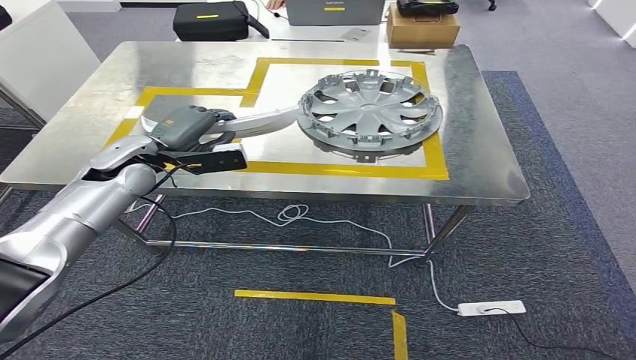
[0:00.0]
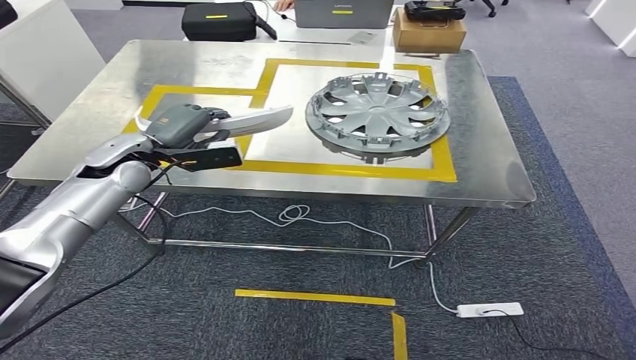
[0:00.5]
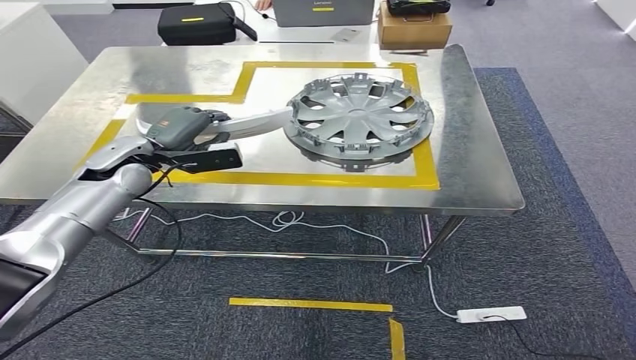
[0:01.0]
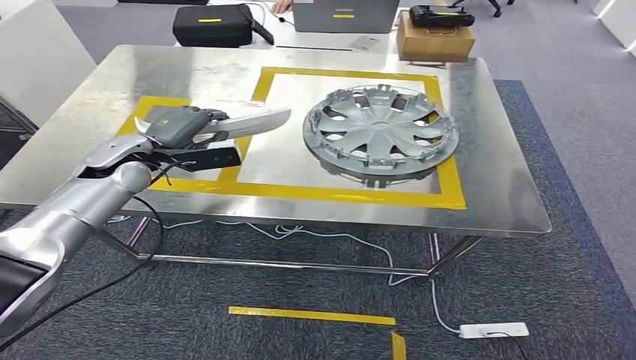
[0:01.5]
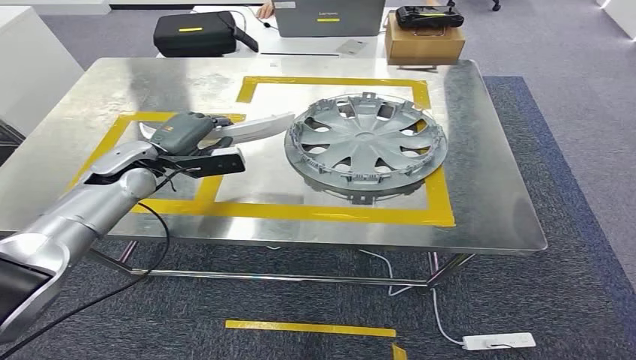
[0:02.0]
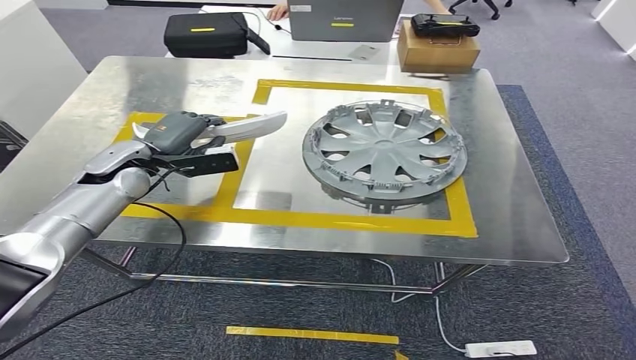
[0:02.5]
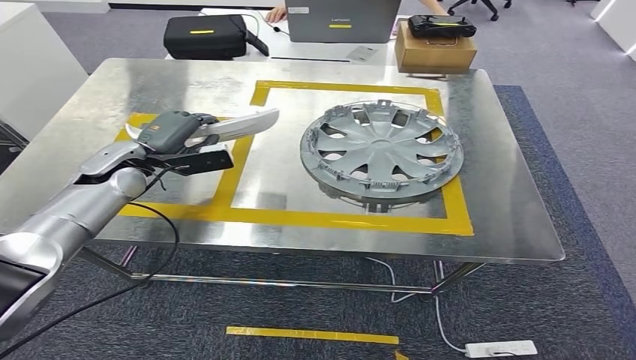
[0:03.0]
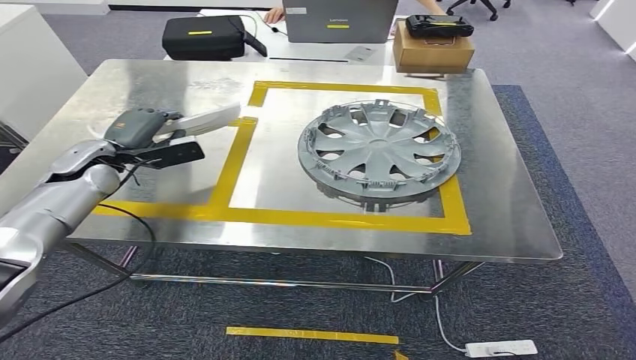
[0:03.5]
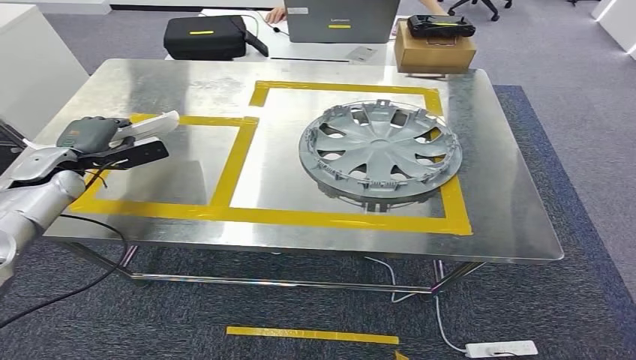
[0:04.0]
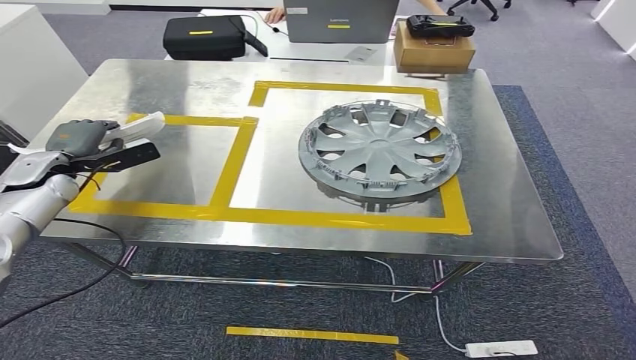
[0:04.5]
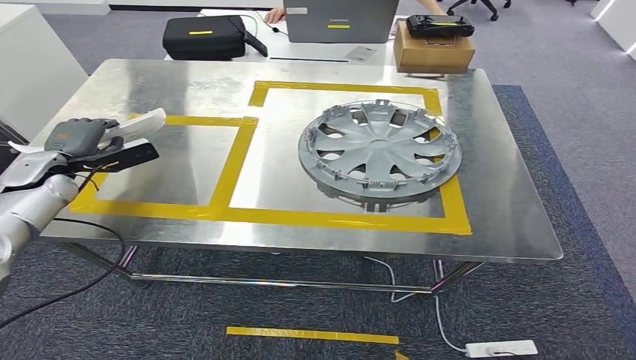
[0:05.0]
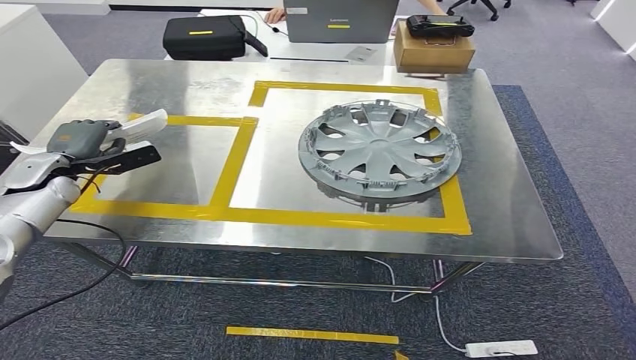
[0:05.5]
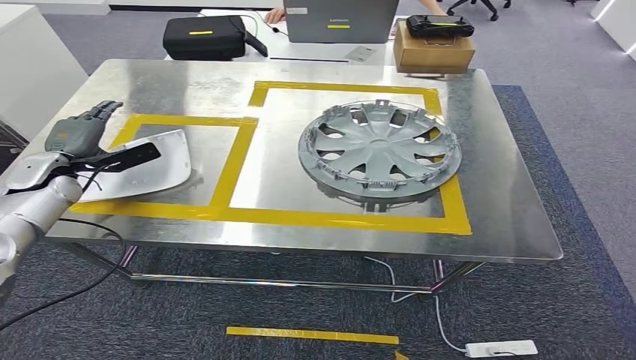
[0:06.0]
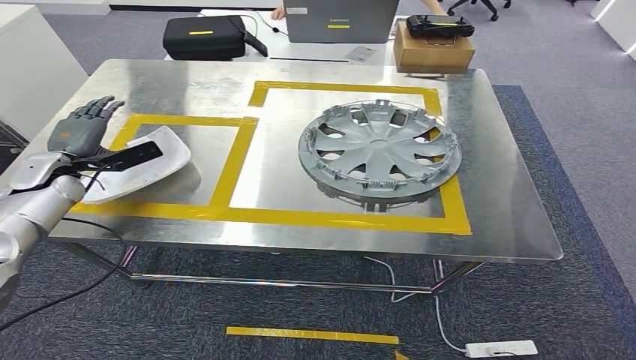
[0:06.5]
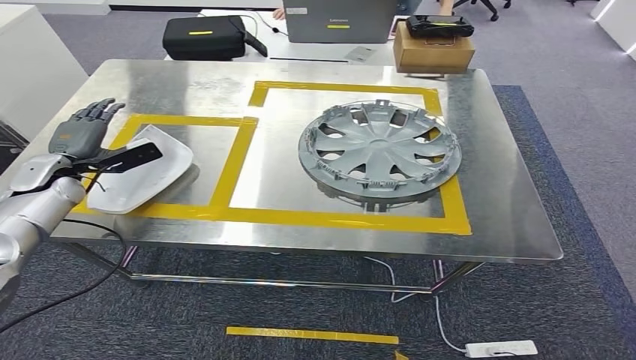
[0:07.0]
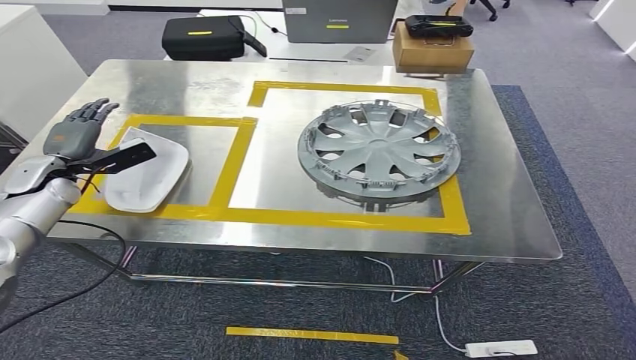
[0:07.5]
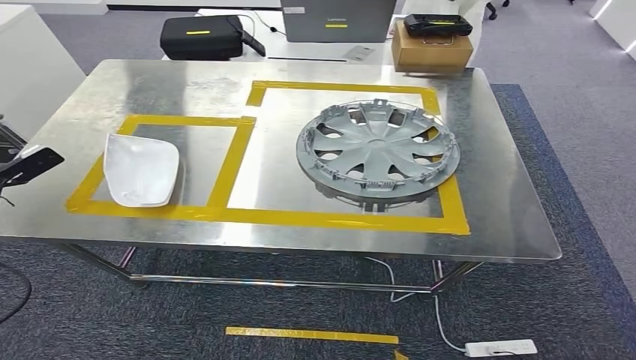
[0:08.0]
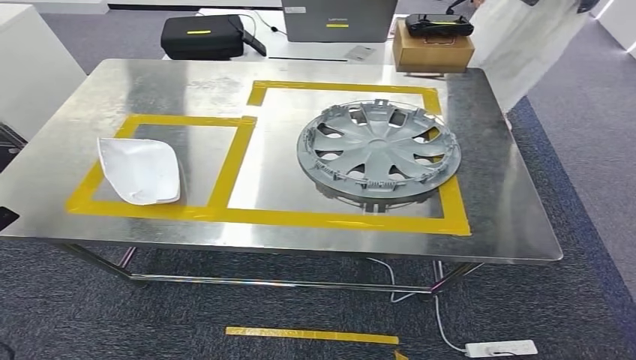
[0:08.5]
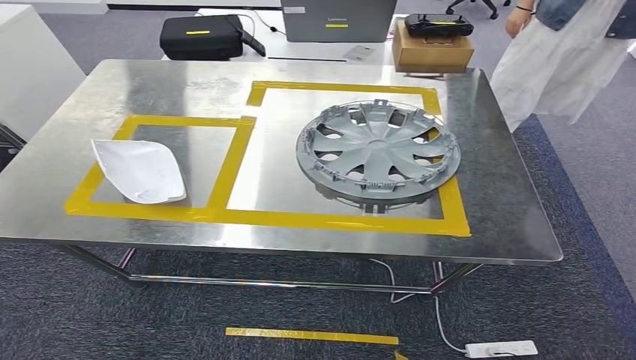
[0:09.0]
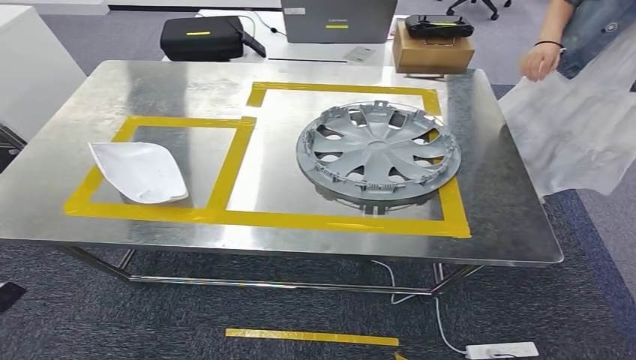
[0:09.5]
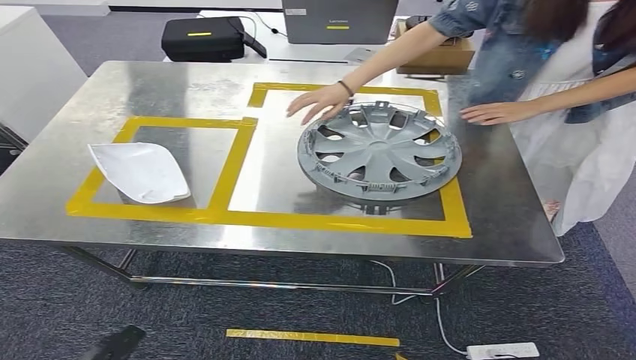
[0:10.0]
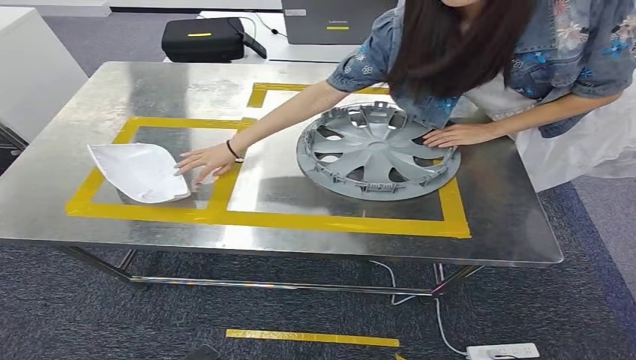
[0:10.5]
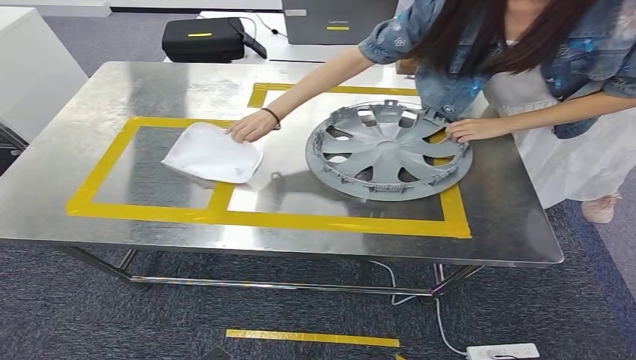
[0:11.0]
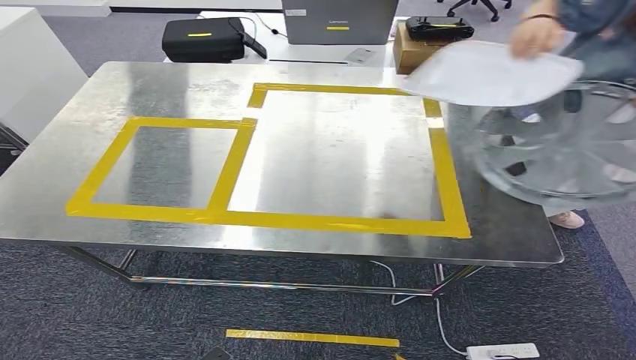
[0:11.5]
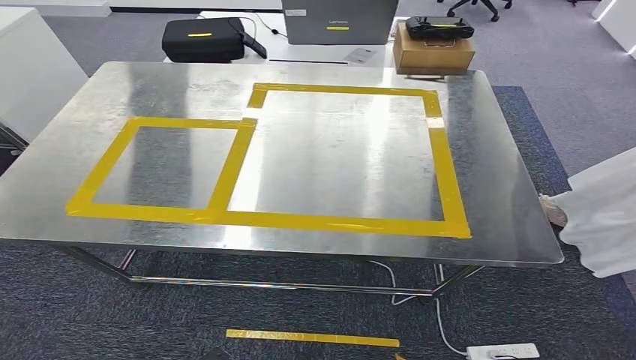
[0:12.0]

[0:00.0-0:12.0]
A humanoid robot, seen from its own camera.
Step, 0:00.0 to 0:06.5: Insert the small component into the corresponding slot on the workbench.
0:04.0 to 0:06.0: The hands stay close to where they were, moving slightly.
0:06.0 to 0:08.0: The left hand goes roughly 15 cm to the left and backward.

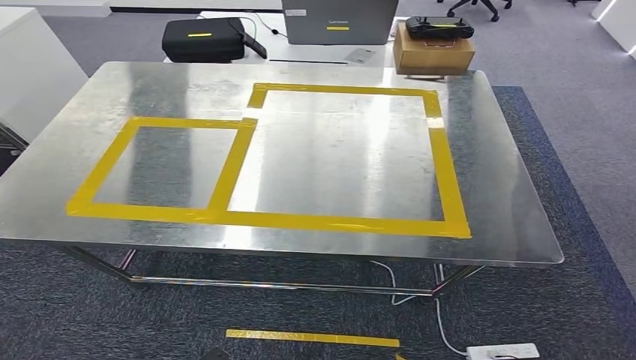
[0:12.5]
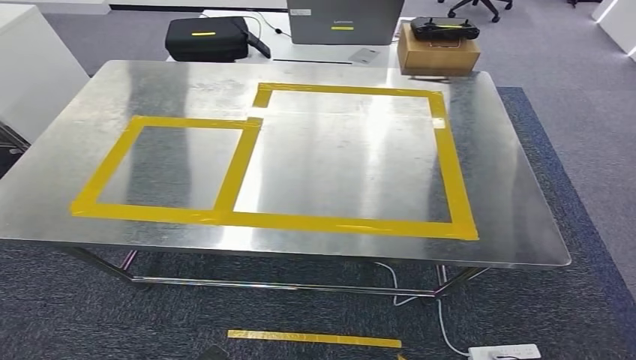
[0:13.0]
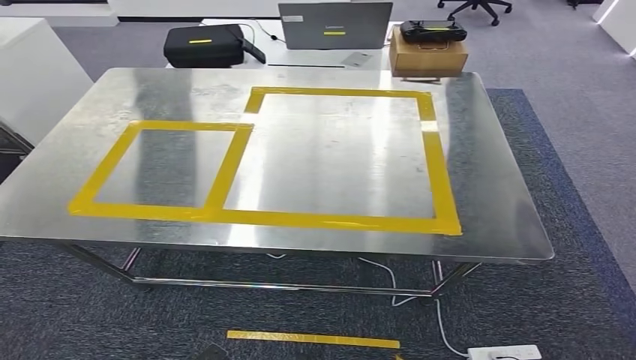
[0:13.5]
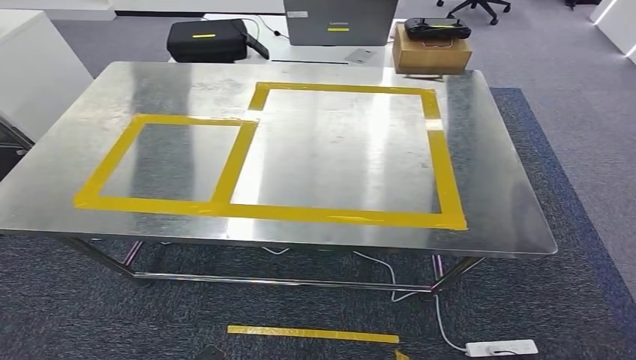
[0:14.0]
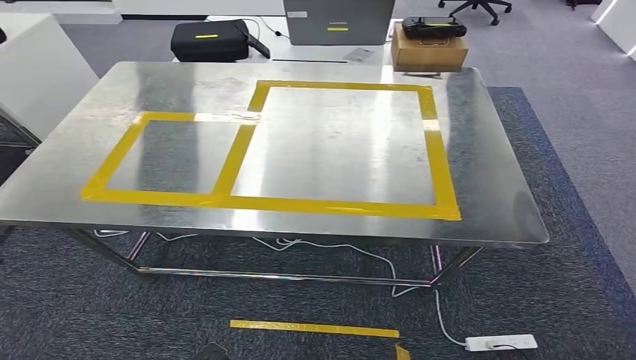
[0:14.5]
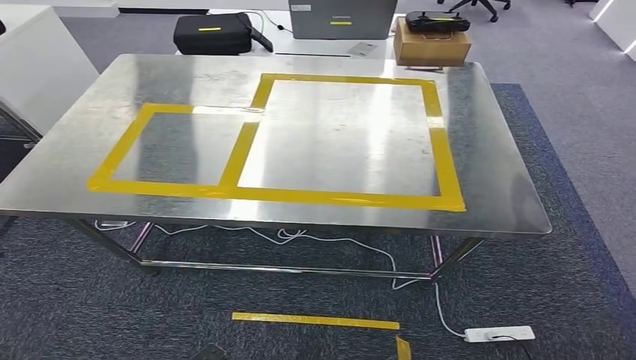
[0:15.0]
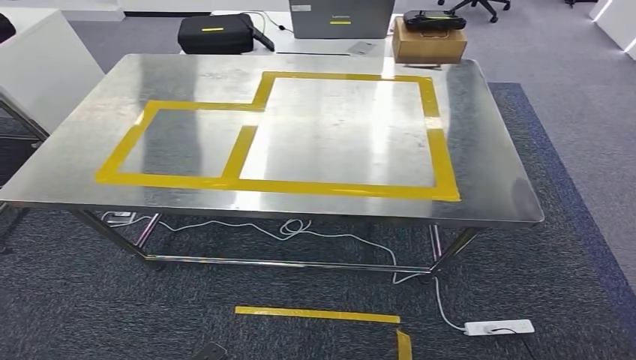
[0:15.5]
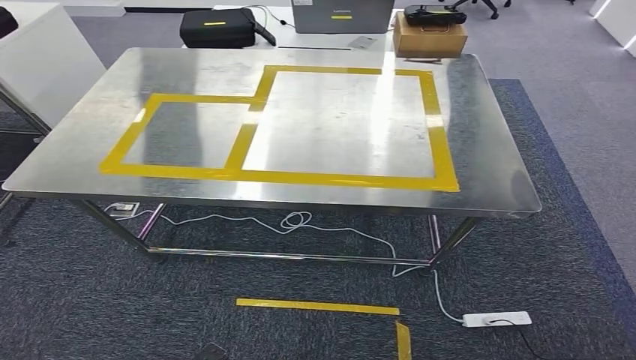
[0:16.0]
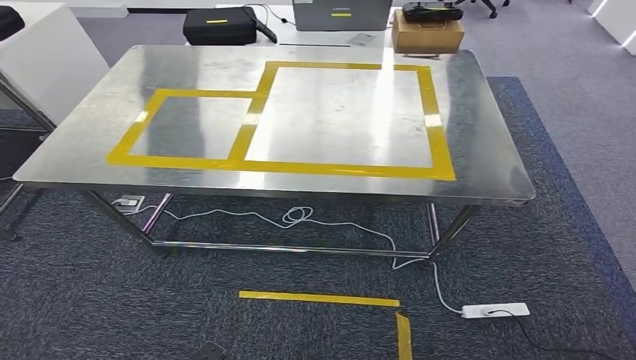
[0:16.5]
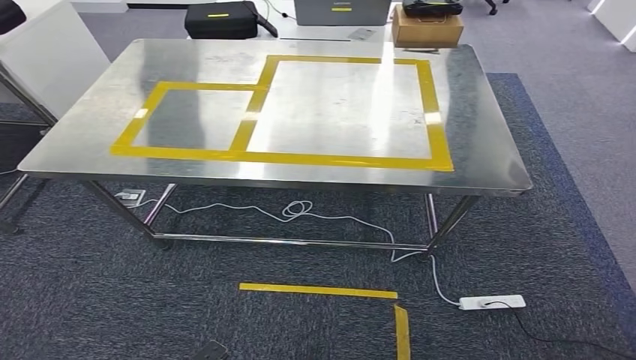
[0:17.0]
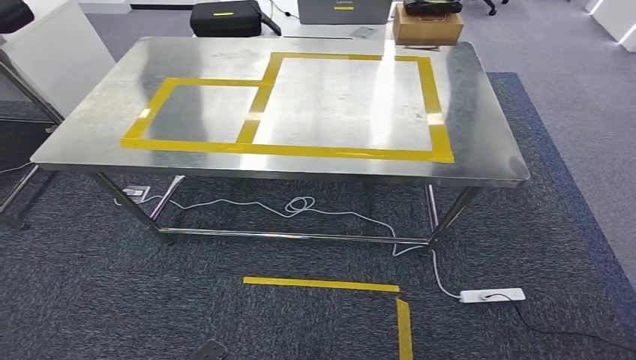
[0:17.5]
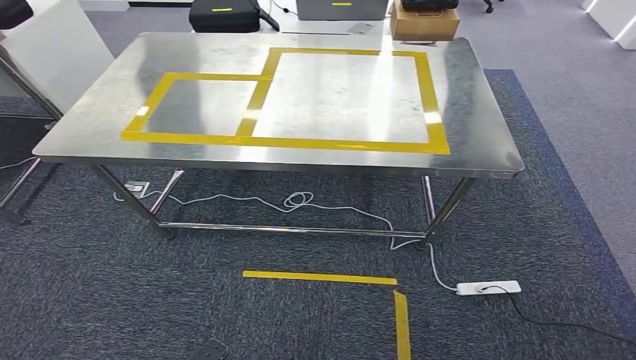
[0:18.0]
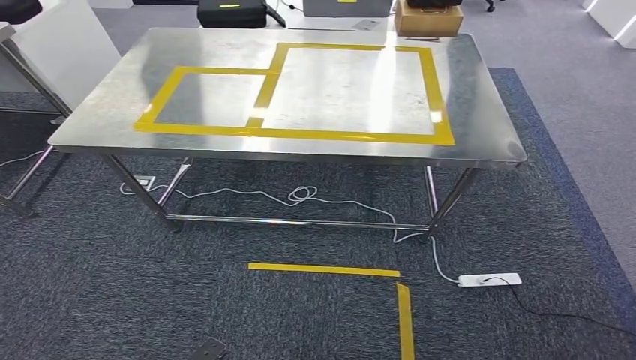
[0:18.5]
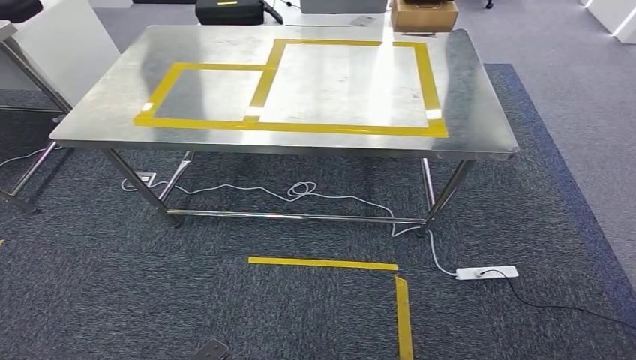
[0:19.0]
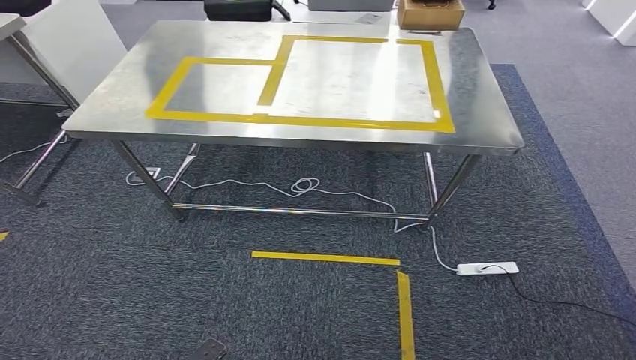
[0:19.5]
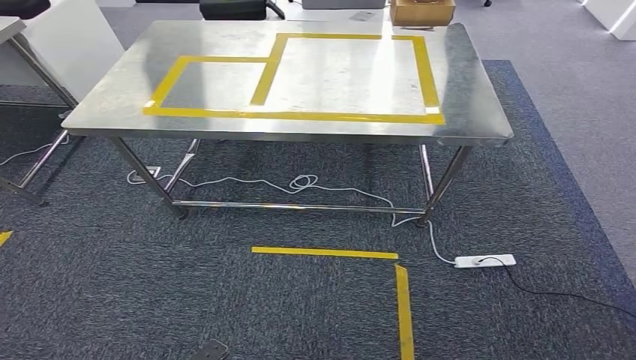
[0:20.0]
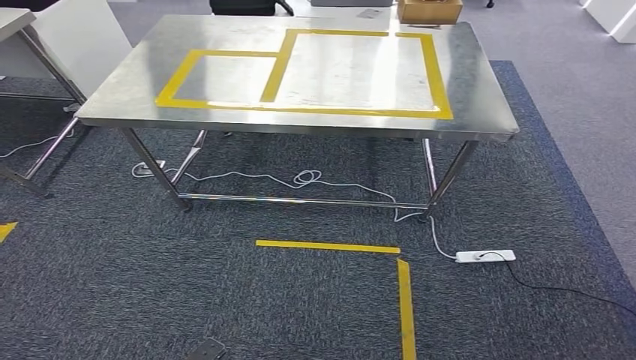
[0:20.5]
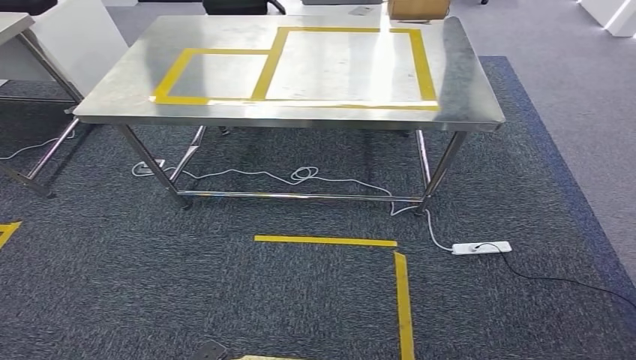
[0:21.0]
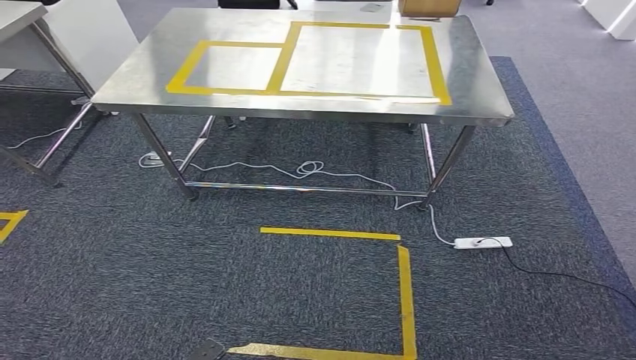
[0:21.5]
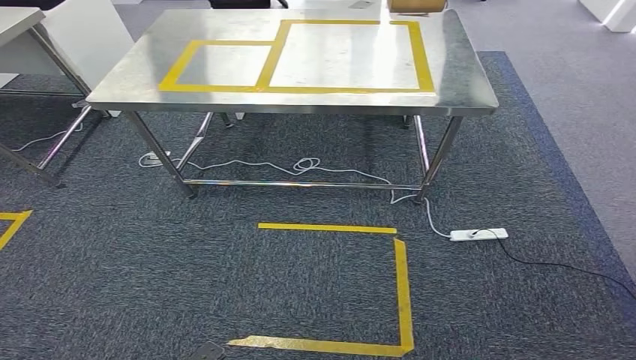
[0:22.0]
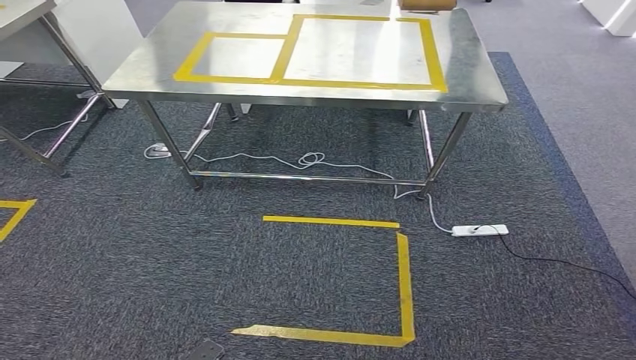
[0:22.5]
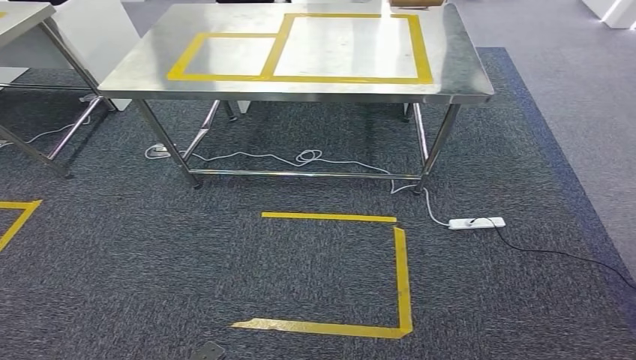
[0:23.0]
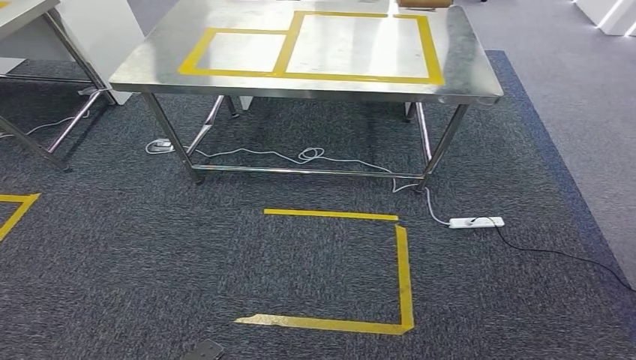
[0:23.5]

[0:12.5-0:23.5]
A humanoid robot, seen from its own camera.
0:21.5 to 0:23.5: Both hands stay about where they are.
